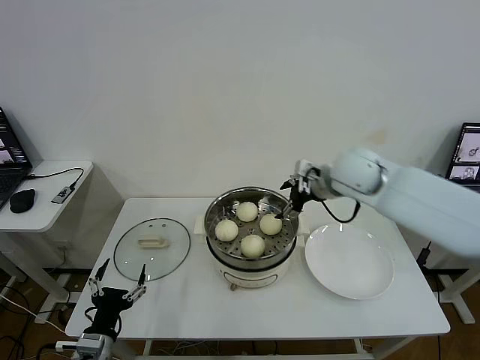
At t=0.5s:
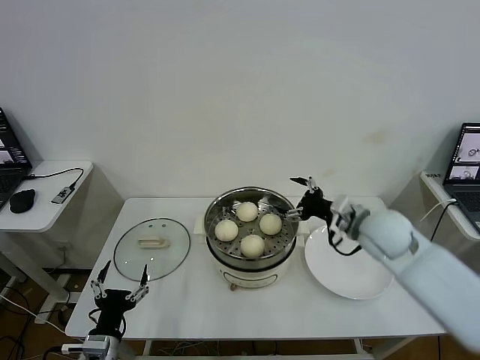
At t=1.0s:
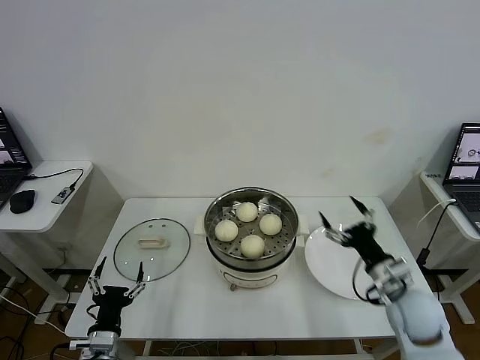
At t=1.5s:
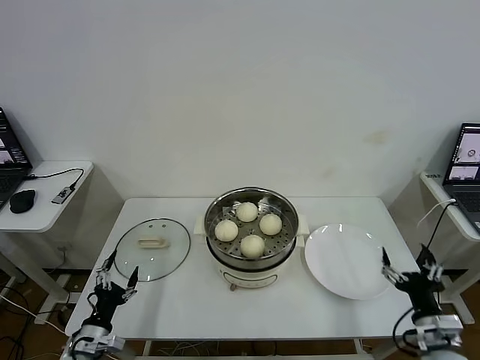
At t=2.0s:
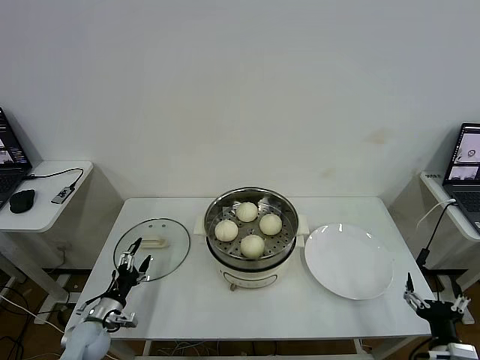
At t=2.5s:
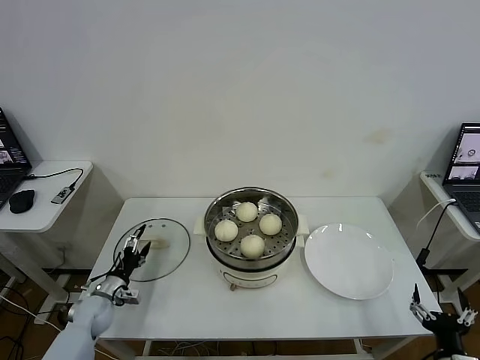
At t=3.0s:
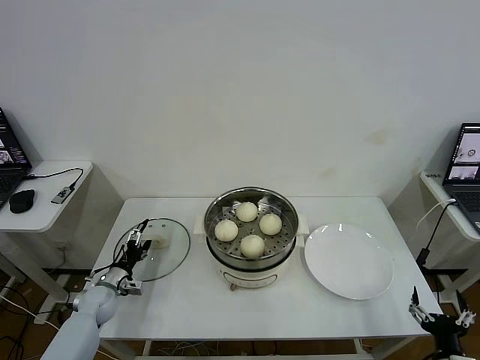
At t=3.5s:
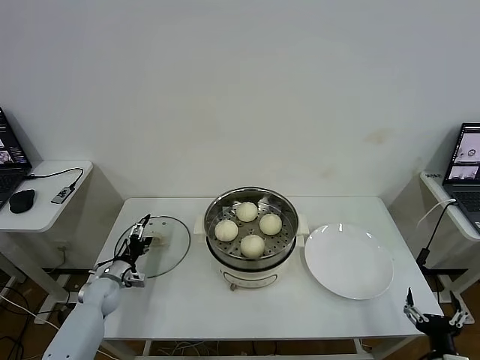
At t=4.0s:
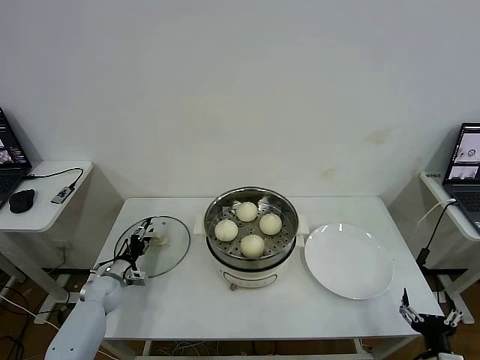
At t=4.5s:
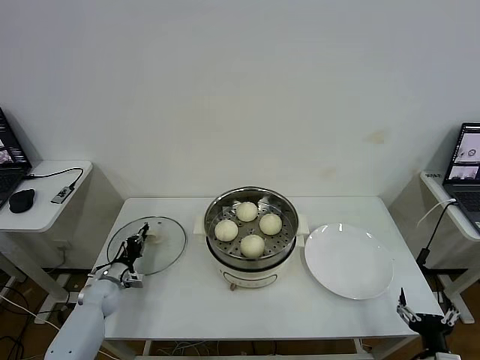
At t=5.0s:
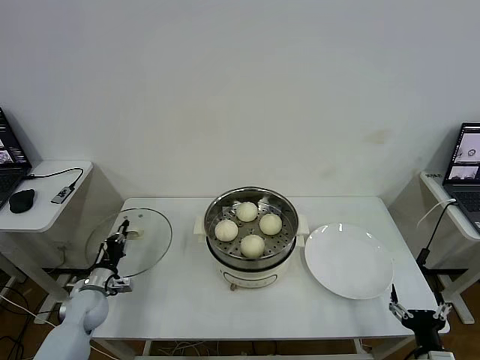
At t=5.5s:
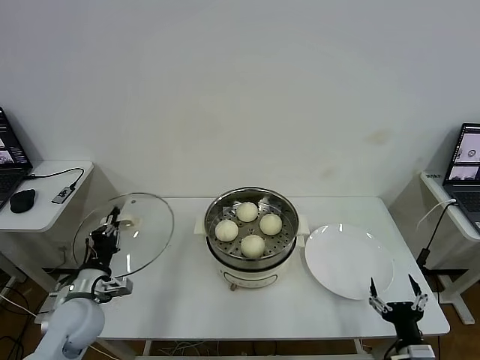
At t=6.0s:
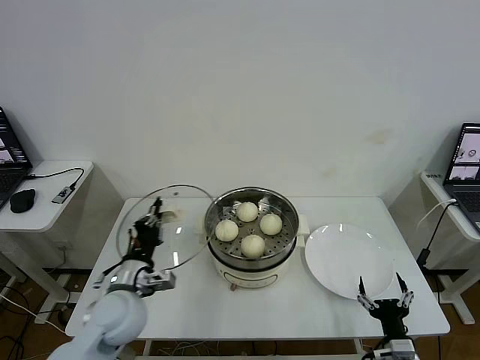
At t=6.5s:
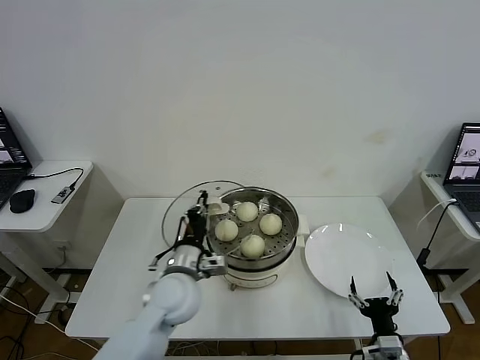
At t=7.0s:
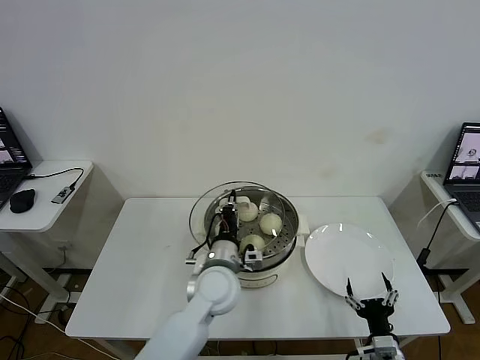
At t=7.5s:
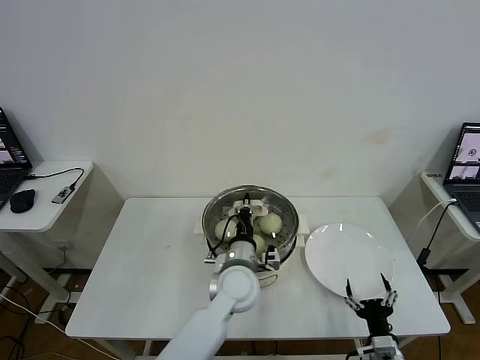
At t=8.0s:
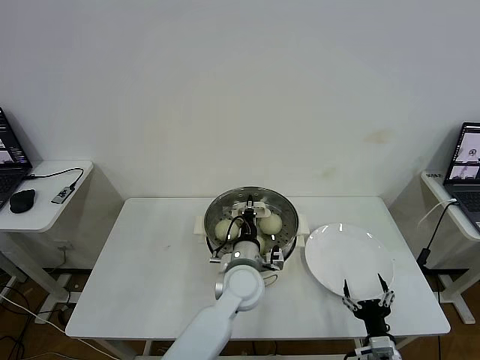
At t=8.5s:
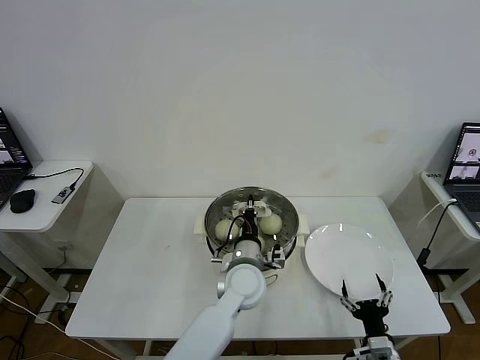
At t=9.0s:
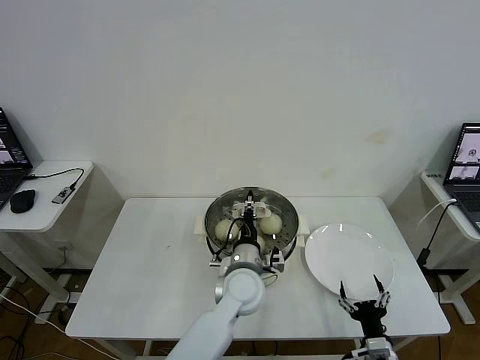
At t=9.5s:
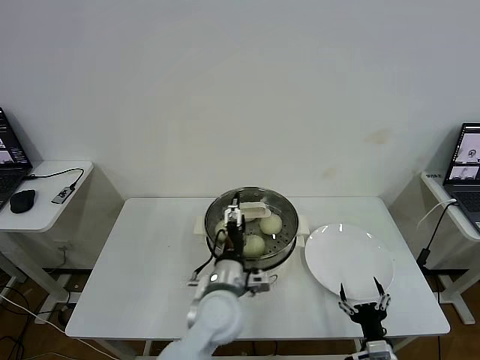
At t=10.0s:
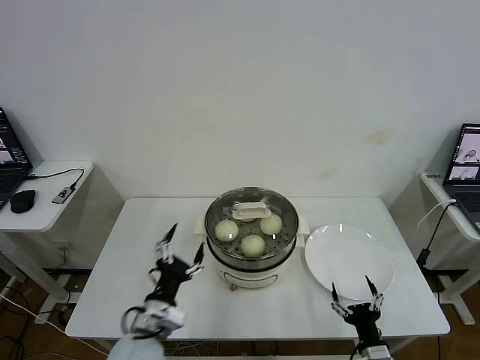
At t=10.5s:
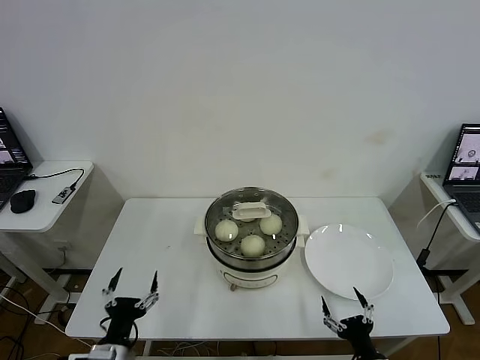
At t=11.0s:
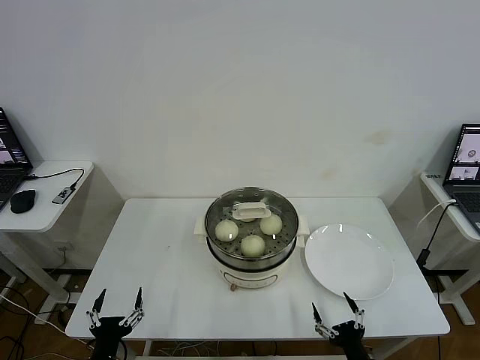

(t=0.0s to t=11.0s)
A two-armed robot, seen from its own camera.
Task of the whole recording: take steamed baozi put them in steamer then cover it.
Step, t=0.0s - t=4.5s: Grasp the pot lid with left gripper.
Step, t=5.0s - t=9.0s: Place the pot lid on the steamer with left gripper.
t=0.0s - t=2.0s: The left gripper goes some 15 cm forward, downward and to the left. Meanwhile the right gripper heads backward, downward and to the right, covering approximately 50 cm.
t=2.0s - t=3.5s: The left gripper is displaced forward by roughly 15 cm.
t=3.5s - t=5.5s: The left gripper goes some 20 cm upward and backward, and closes.
t=5.5s - t=7.5s: The right gripper ends up roughly 5 cm from where it was, while the left gripper moves to the right, about 35 cm.
t=7.5s - t=9.0s: The left gripper opens.
t=9.0s - t=11.0s: The right gripper changes place by some 5 cm, while the left gripper goes approximately 35 cm to the left and backward, and opens its fingers.
